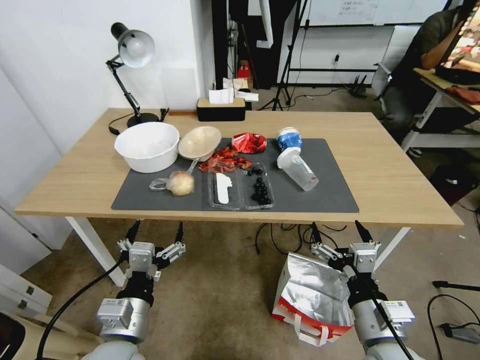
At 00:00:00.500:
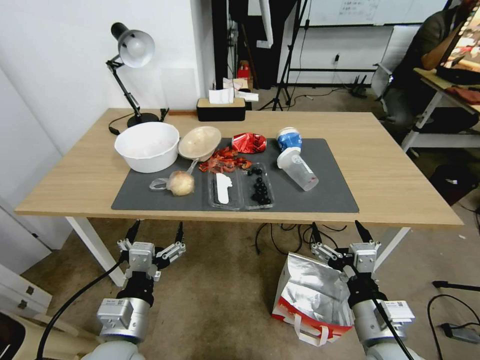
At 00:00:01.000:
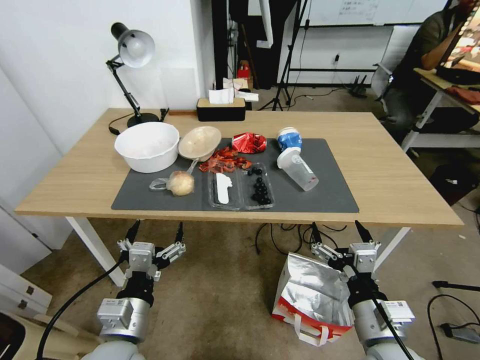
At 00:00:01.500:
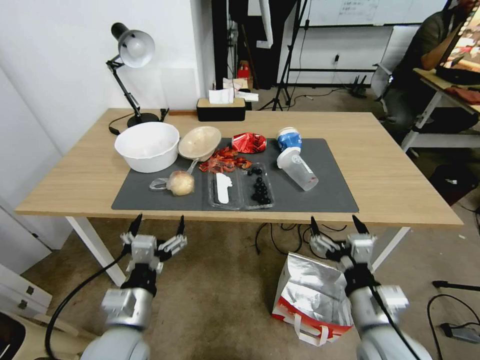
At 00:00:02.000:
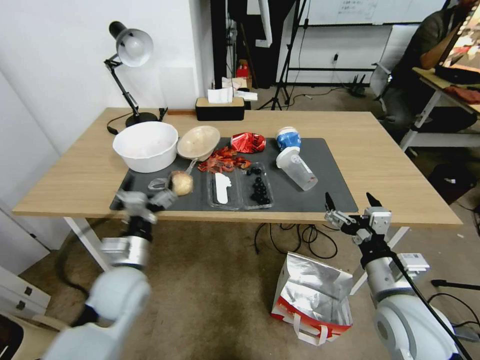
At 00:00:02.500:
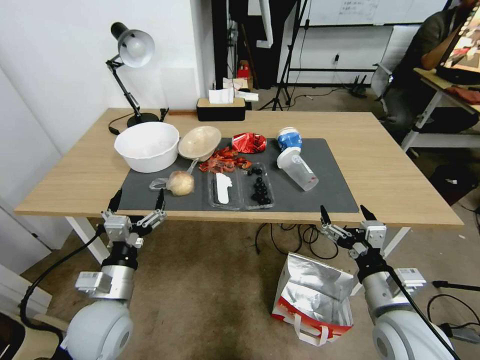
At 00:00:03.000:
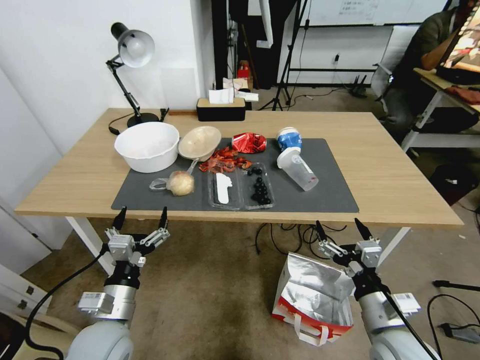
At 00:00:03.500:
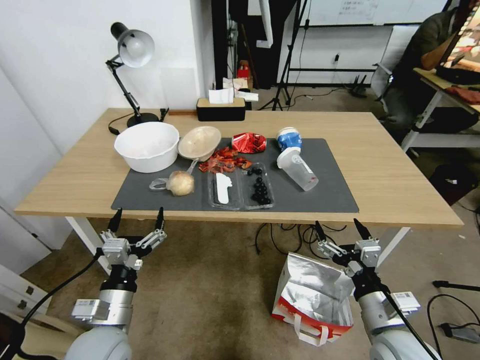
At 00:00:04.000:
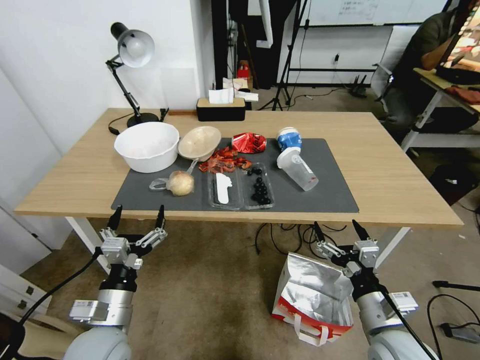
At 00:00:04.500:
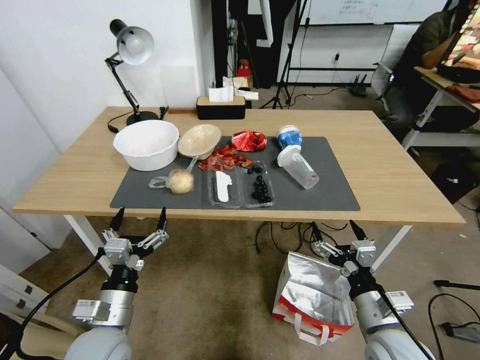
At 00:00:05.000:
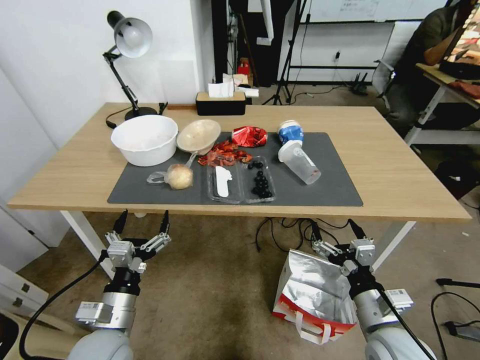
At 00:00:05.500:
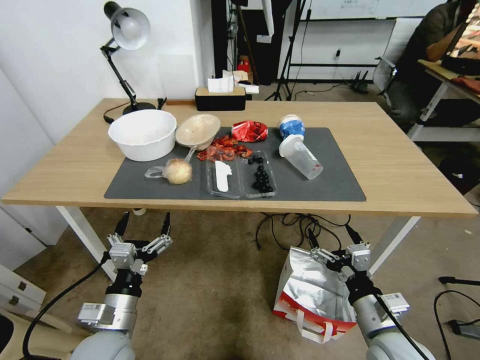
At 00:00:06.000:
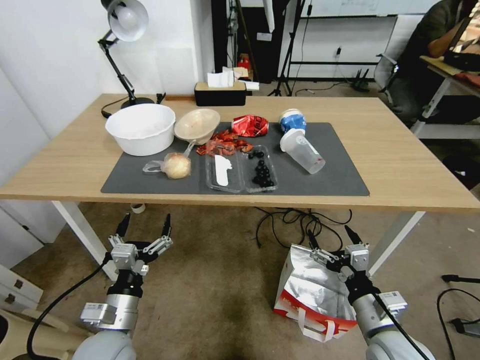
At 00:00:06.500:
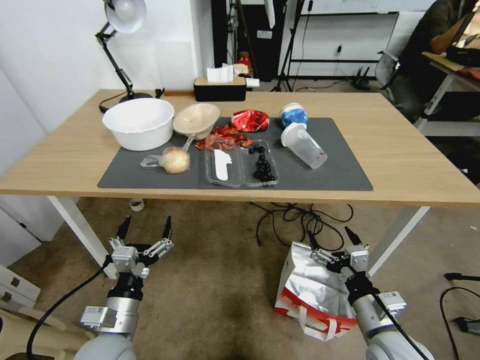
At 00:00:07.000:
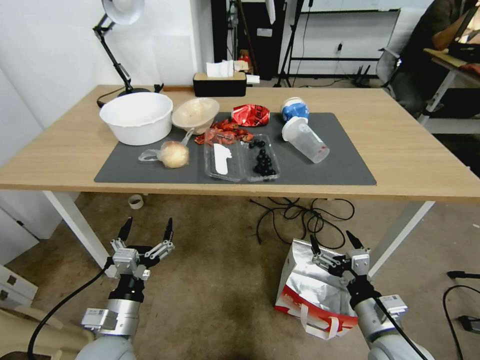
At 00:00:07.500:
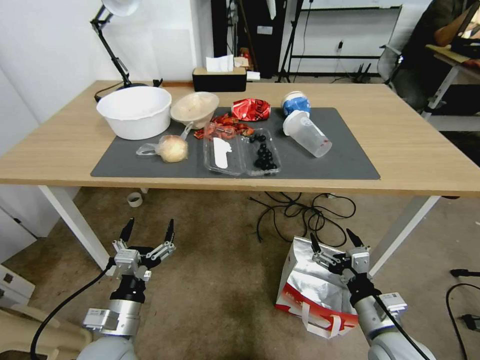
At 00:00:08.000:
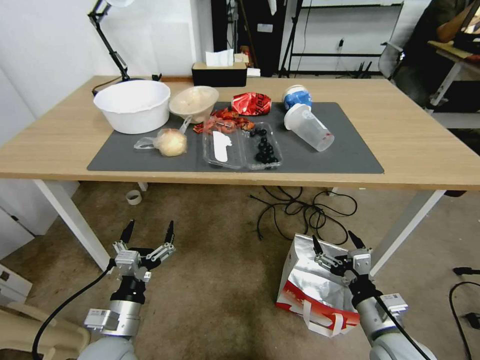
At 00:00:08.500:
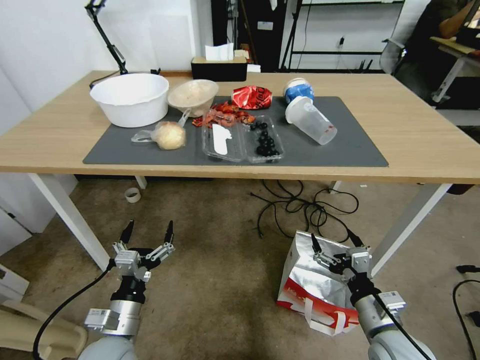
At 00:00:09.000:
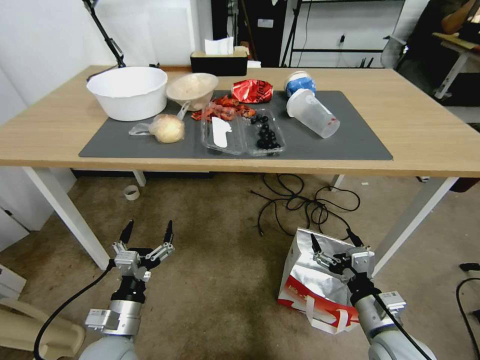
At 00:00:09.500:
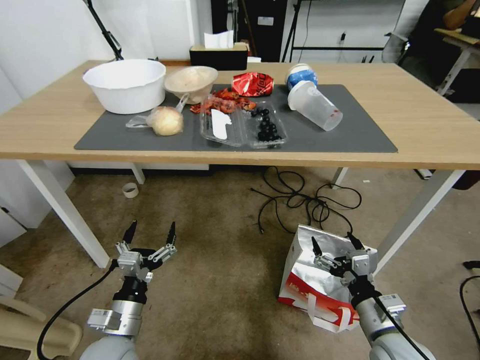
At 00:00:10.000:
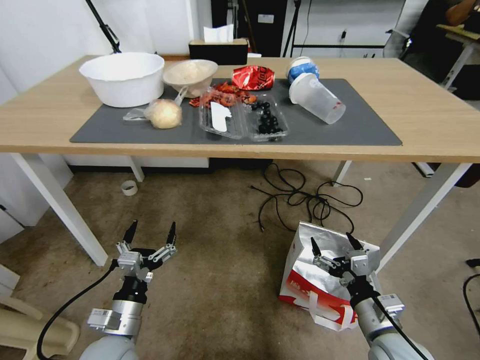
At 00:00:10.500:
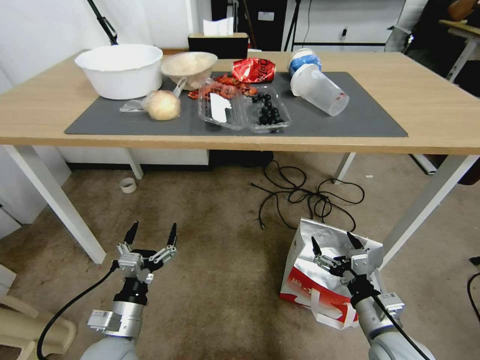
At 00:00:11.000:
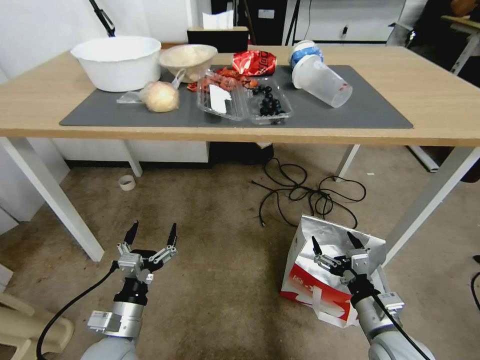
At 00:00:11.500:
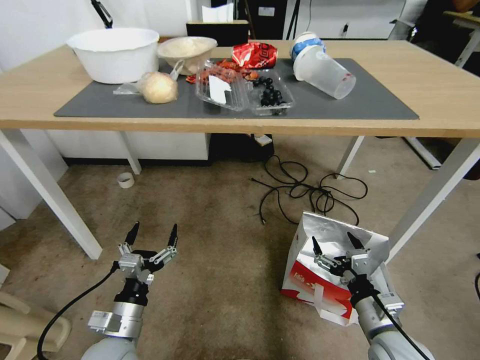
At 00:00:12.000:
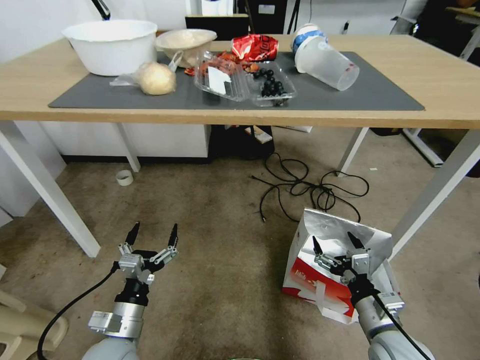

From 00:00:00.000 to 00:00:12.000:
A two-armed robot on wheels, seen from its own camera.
Task of the whole recording: Pick up the food delivery bag from the floor and place it on the table.
From 00:00:02.000 to 00:00:04.000: The left gripper heads backward, covering some 10 cm. The right gripper moves downward, roughly 5 cm.

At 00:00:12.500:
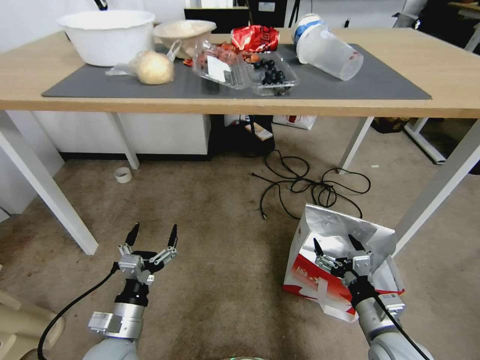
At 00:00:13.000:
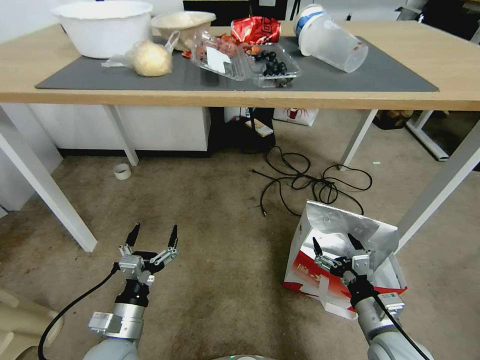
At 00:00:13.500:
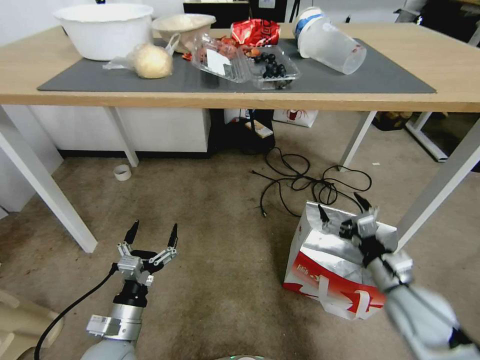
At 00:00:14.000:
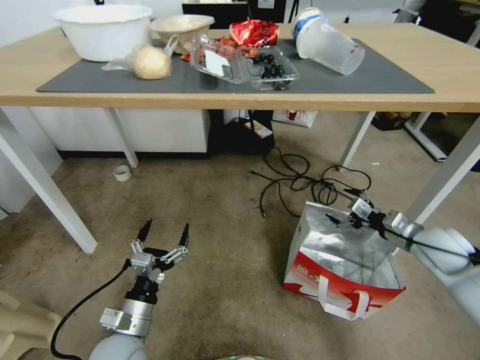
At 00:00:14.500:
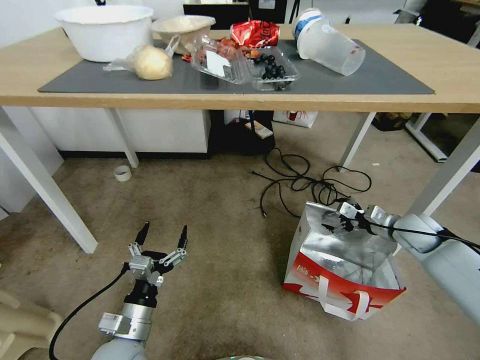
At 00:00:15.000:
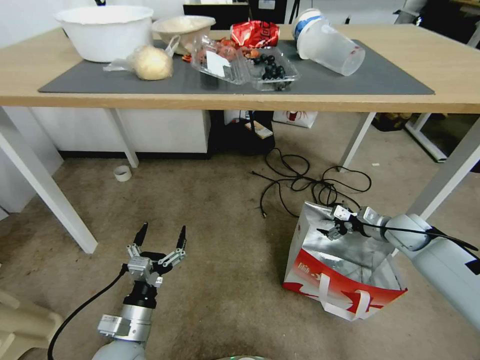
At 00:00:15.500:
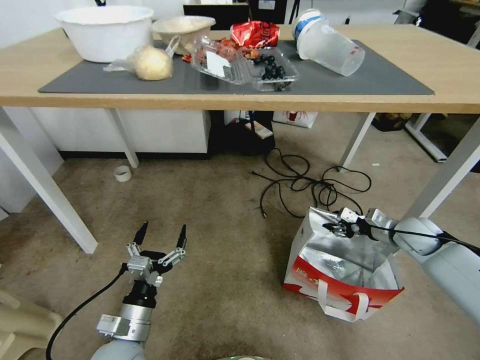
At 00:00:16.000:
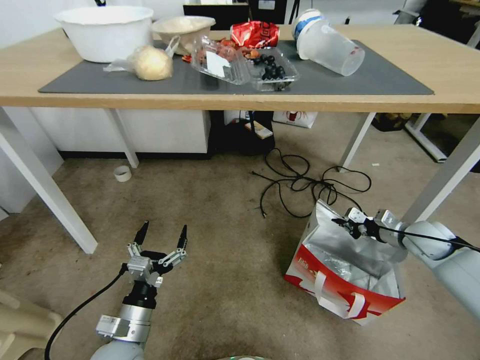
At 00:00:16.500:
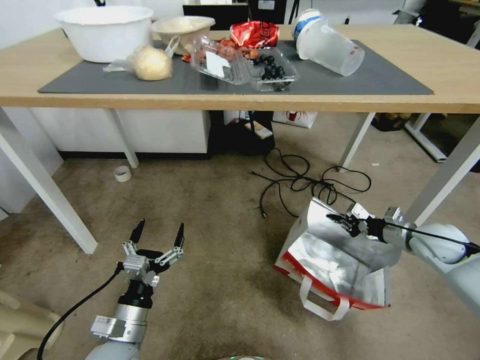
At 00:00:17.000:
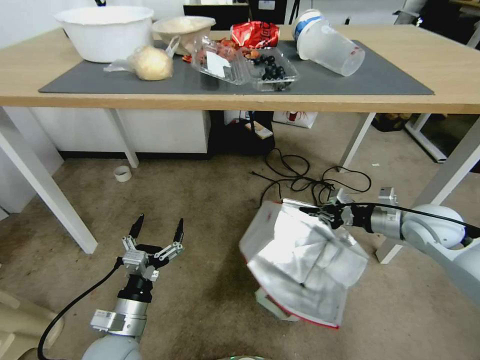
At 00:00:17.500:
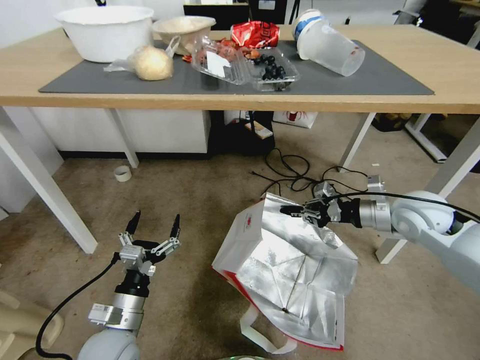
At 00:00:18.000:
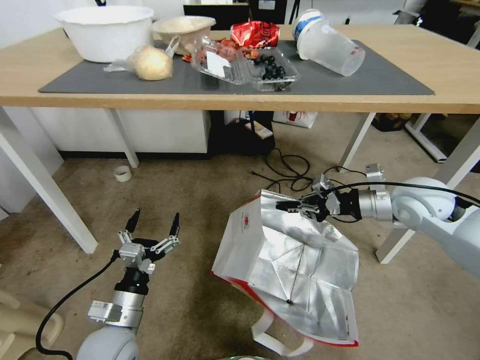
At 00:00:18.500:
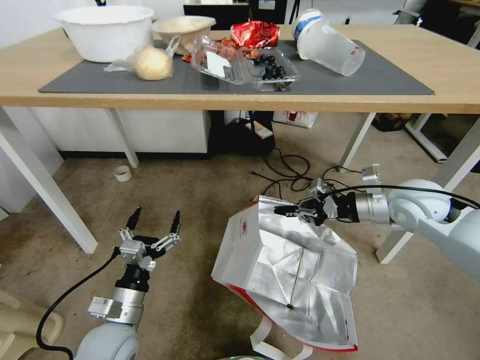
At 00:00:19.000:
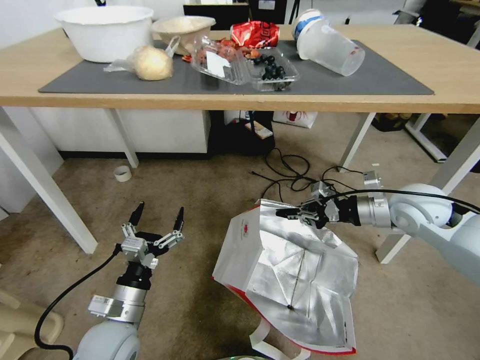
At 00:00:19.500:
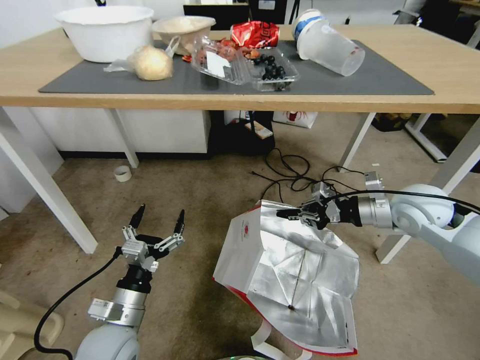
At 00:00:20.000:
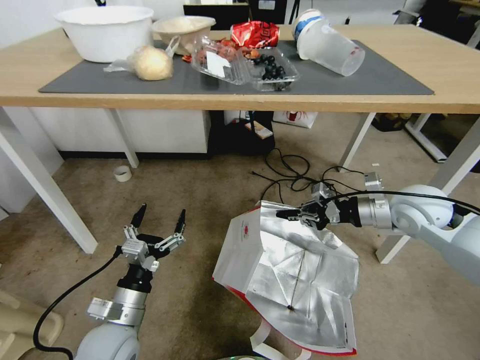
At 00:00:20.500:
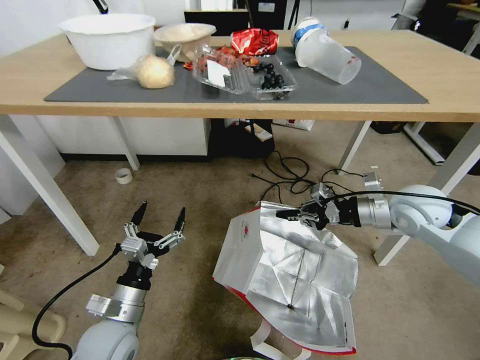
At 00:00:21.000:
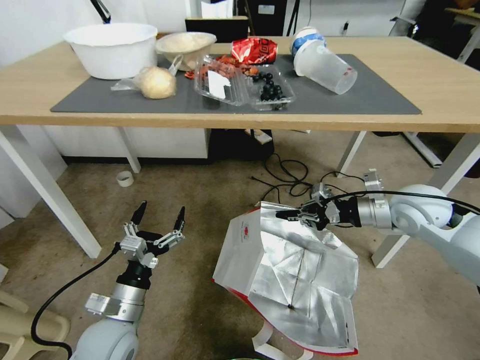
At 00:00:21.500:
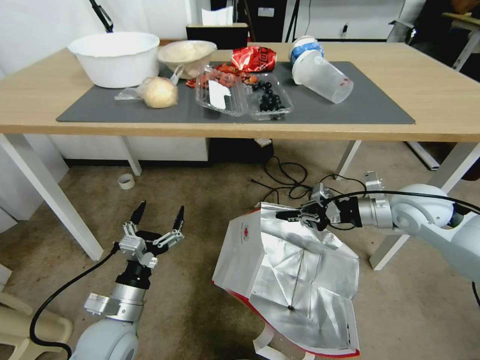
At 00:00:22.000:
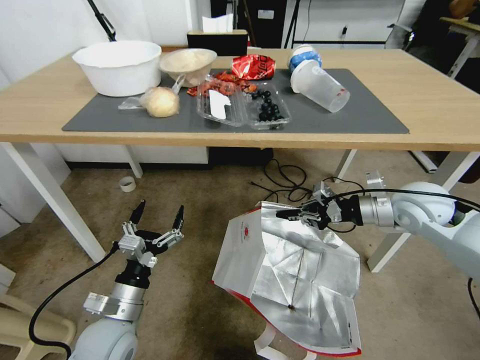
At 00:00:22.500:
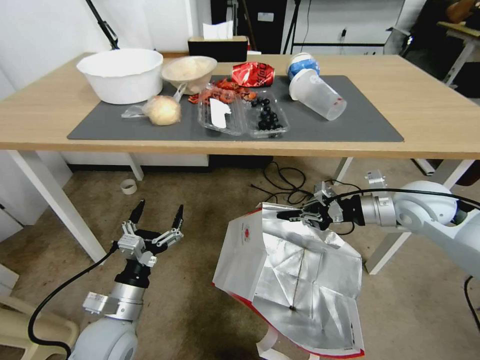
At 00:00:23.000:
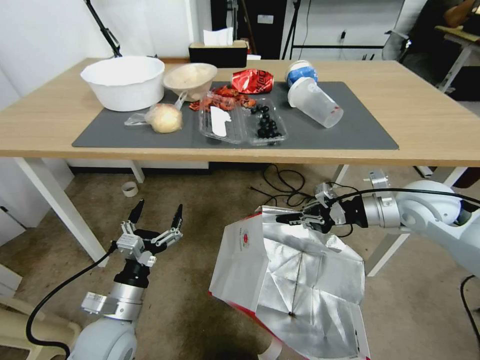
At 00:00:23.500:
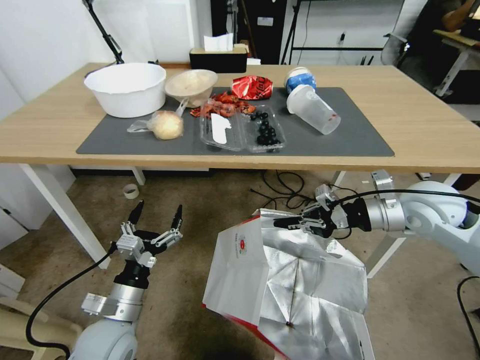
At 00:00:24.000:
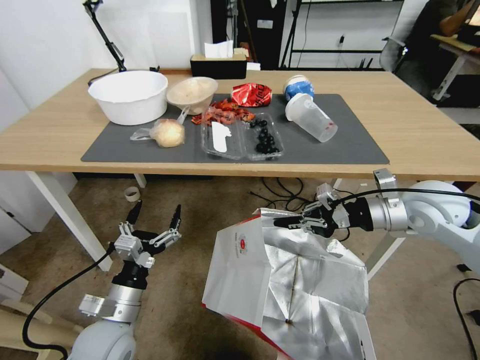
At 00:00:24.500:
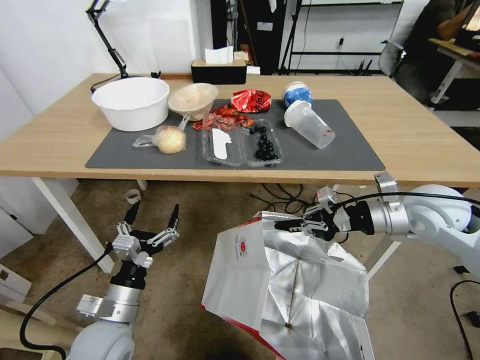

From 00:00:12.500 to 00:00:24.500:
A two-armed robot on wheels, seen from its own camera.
Task of the whole recording: Pick up the food delivery bag from the floor and place it on the table.
From 00:00:12.500 to 00:00:14.500: The right gripper is displaced forward and to the right by some 30 cm.
From 00:00:14.500 to 00:00:16.500: The right gripper closes up.
From 00:00:16.500 to 00:00:18.500: The right gripper moves upward and to the left, approximately 15 cm.

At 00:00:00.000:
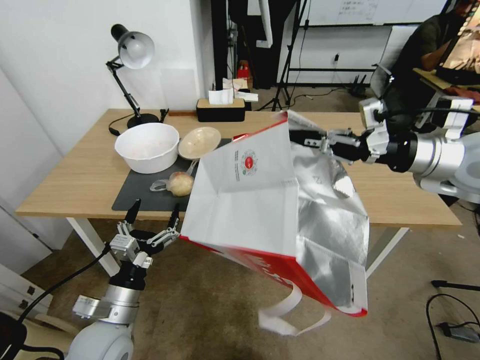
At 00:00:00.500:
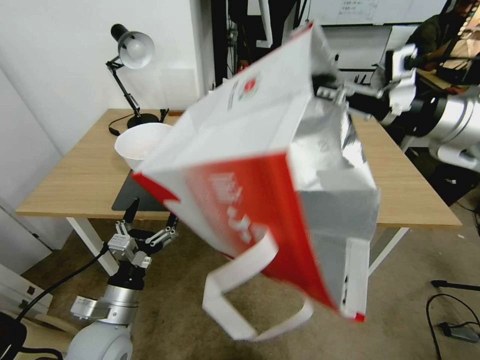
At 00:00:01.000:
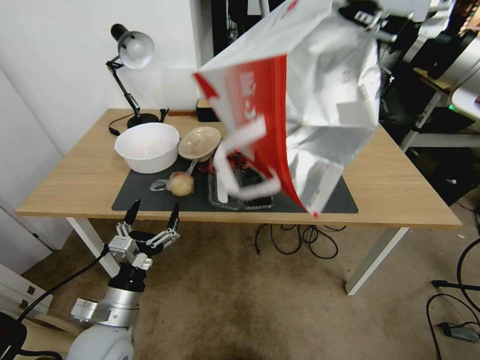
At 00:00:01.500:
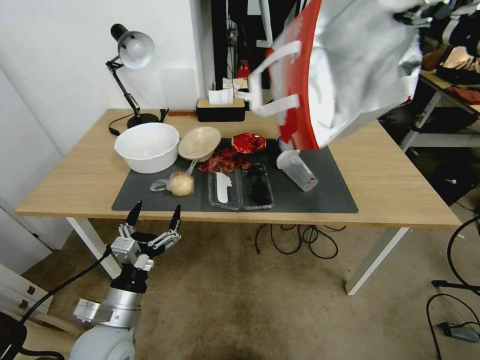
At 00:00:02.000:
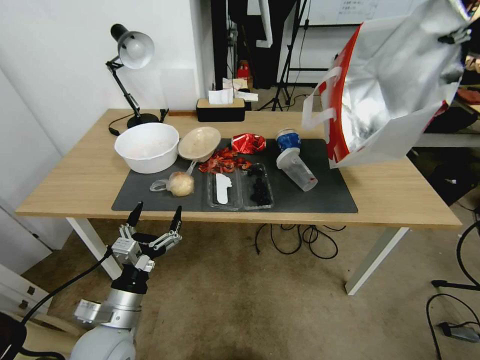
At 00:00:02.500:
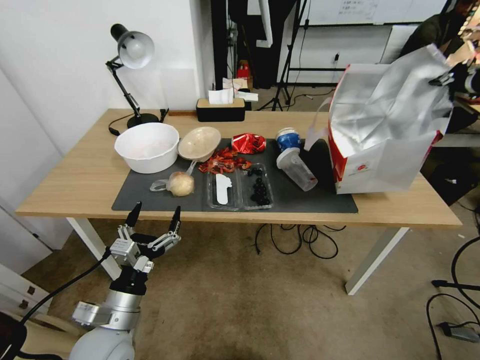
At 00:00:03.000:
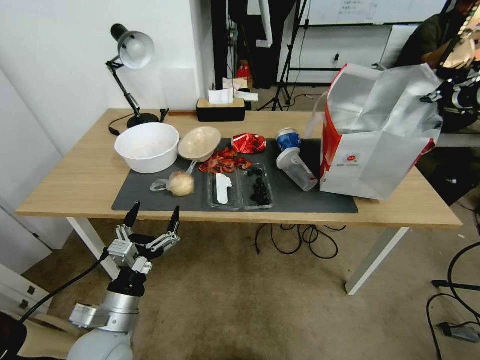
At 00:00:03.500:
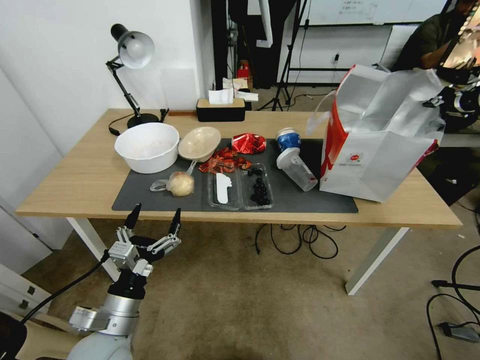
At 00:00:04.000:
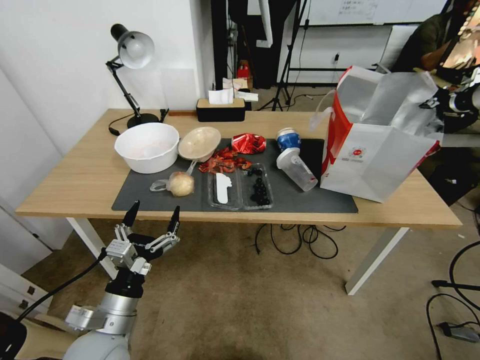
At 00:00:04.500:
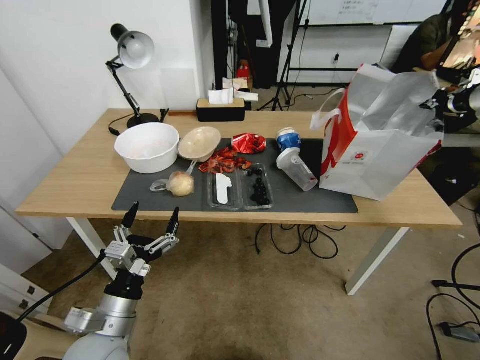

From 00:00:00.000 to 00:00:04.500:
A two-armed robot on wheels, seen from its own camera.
Task of the whole recording: Pick up the food delivery bag from the floor and place it on the table.
From 00:00:00.000 to 00:00:02.000: The right gripper goes about 20 cm upward and to the right.
From 00:00:02.000 to 00:00:04.500: The right gripper moves downward and forward, some 10 cm.
